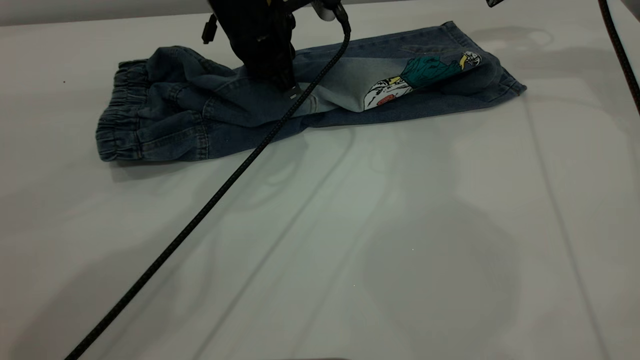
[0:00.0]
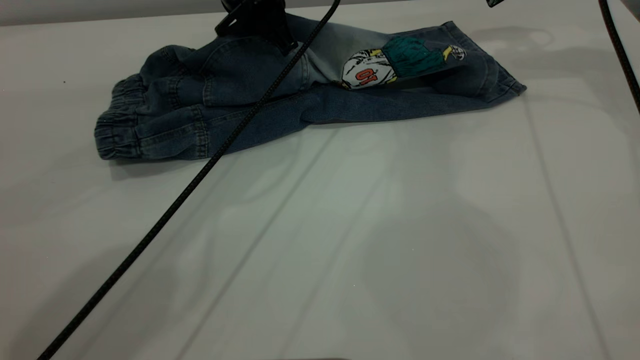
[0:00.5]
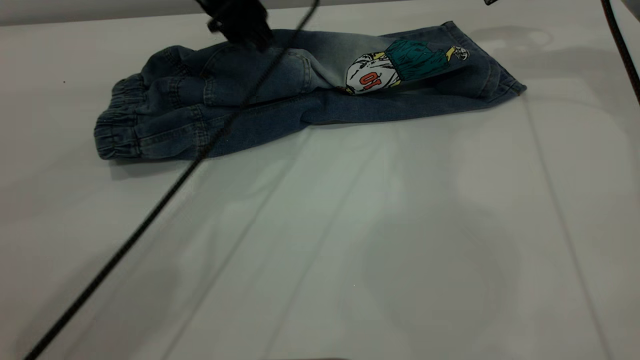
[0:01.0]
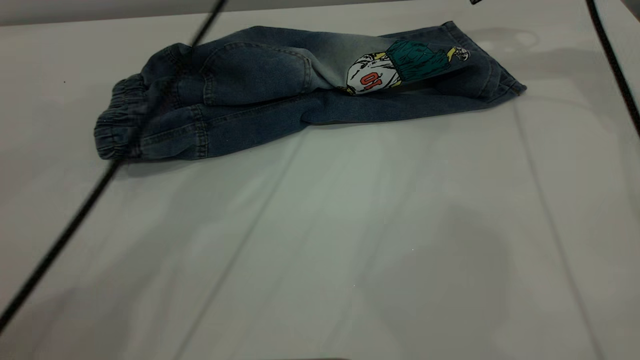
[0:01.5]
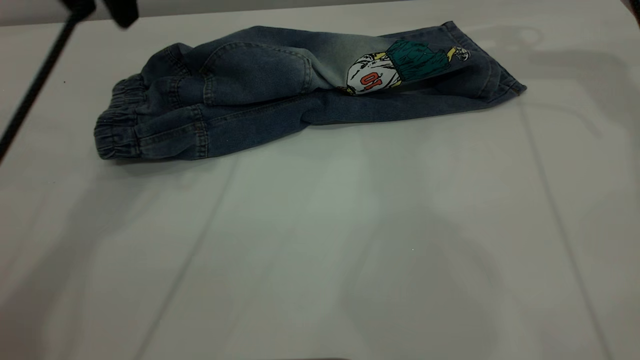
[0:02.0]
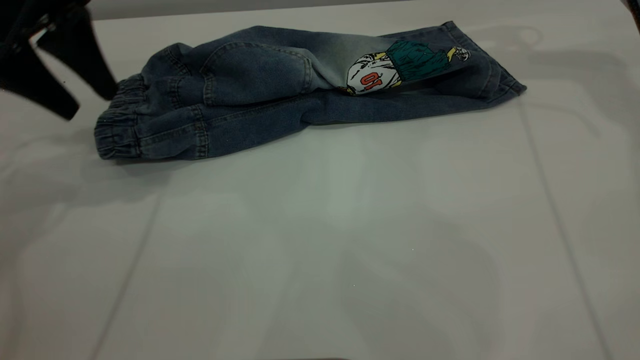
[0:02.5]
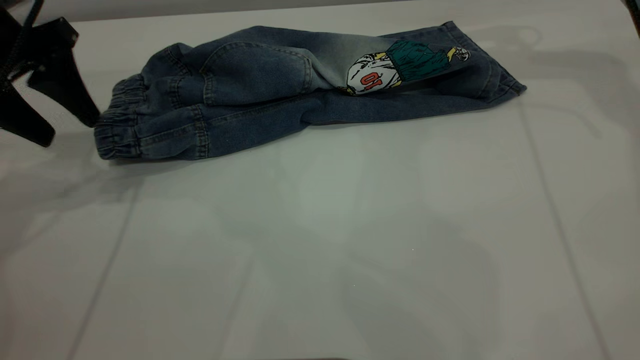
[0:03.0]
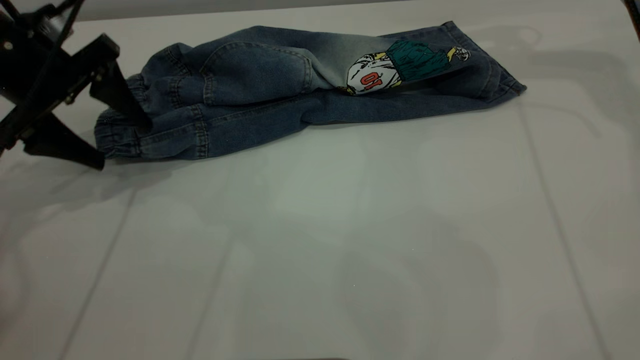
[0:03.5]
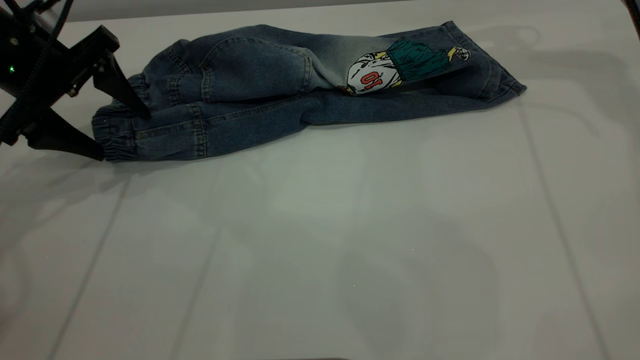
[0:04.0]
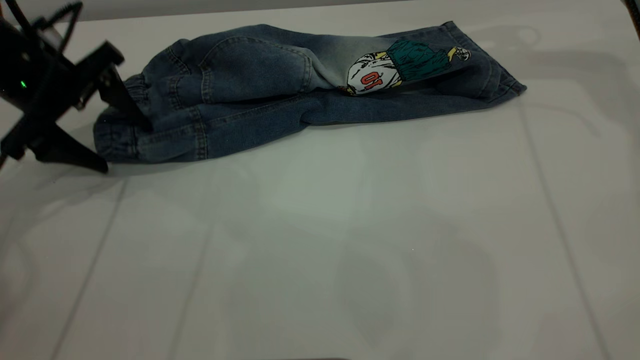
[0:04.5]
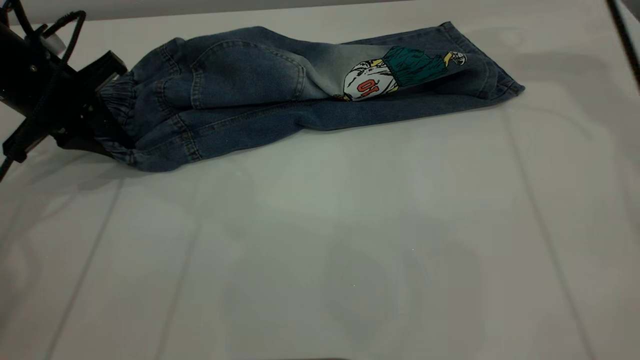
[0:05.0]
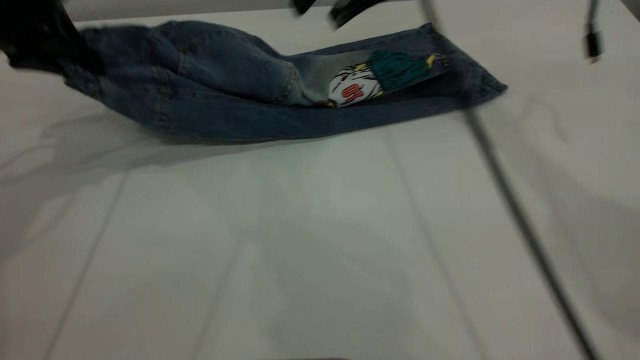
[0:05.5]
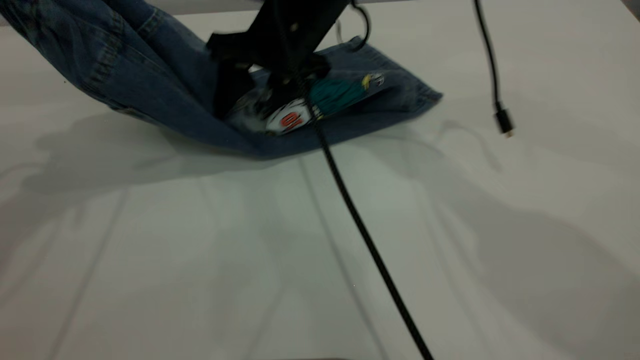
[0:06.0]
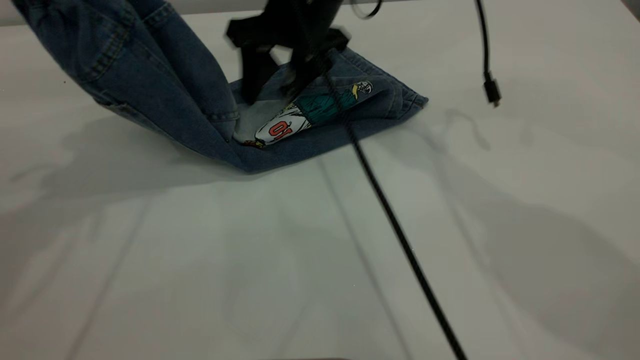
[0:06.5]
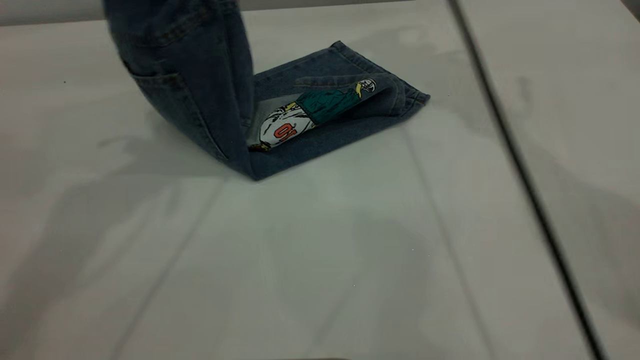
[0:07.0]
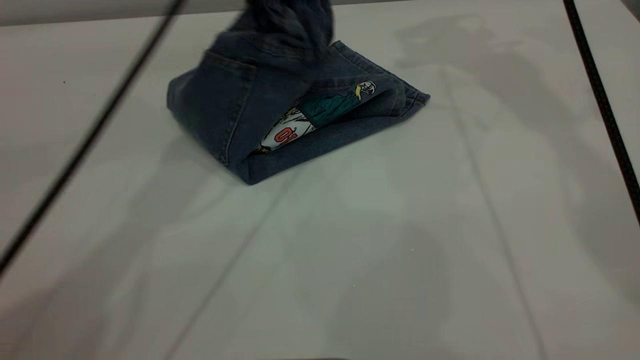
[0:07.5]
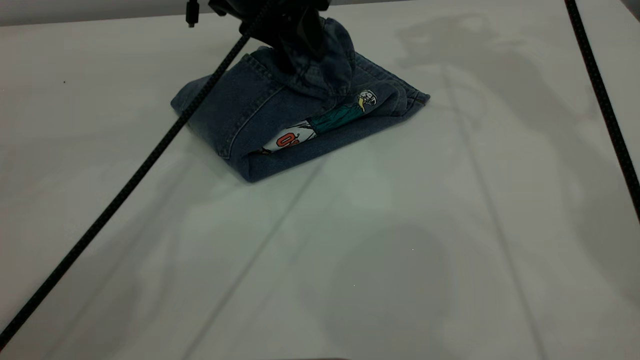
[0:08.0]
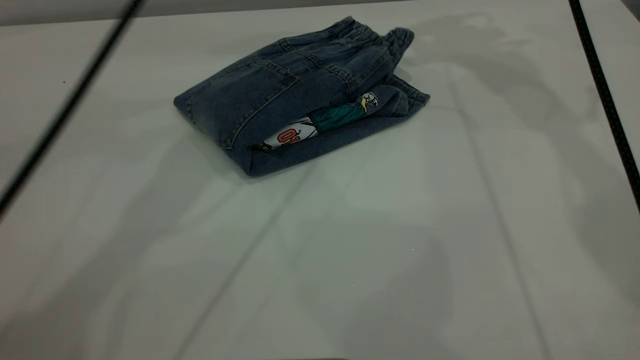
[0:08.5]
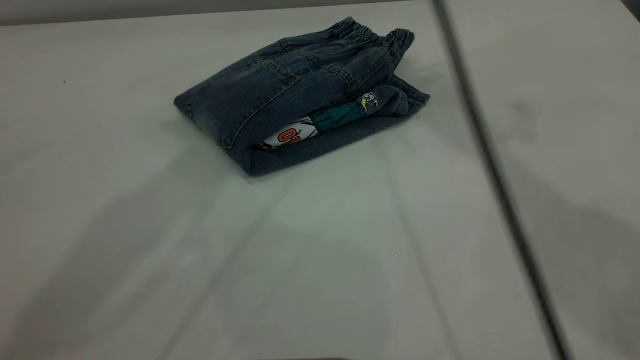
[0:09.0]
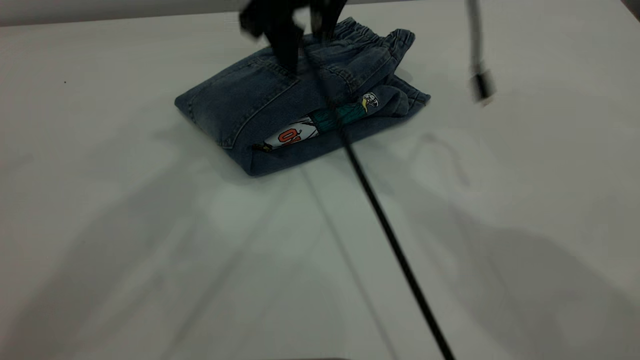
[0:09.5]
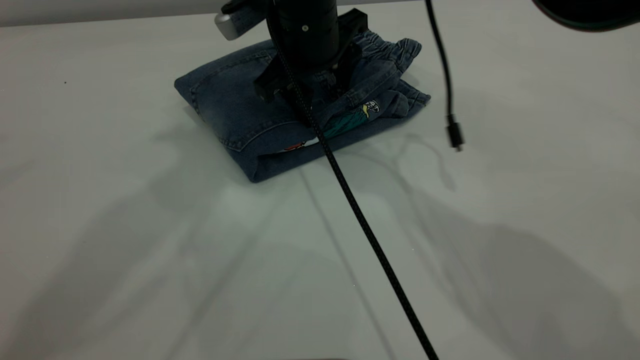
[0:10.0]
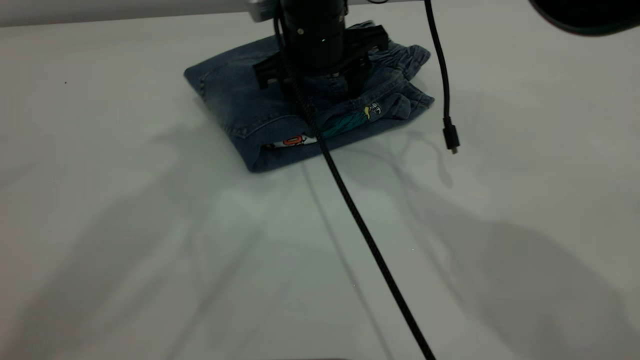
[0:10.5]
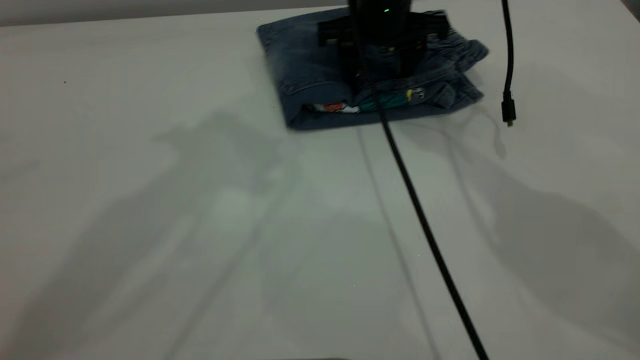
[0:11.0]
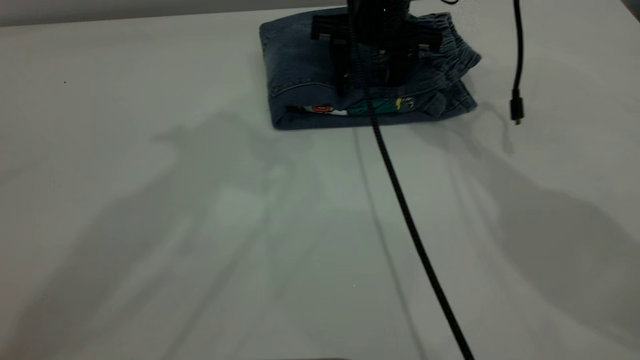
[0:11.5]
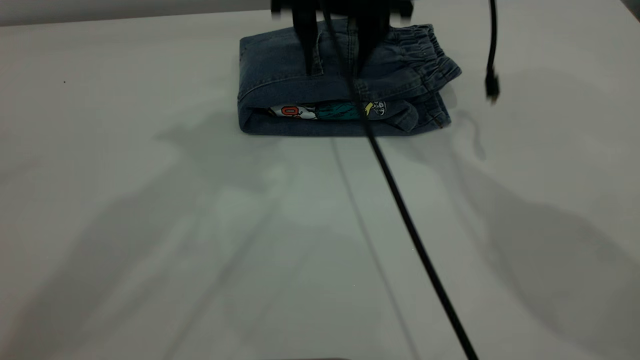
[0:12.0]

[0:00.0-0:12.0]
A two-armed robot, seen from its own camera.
Step, 0:02.0 to 0:08.5: Fold the pants from left to right.
0:00.0 to 0:02.0: The right gripper moves upward, some 5 cm. The left gripper is displaced to the left and upward by roughly 20 cm, and opens up.
0:02.0 to 0:04.0: The left gripper is displaced downward and to the left by about 15 cm.
0:04.0 to 0:06.0: The left gripper shifts roughly 15 cm upward, and closes its fingers; the right gripper travels to the left and downward by roughly 30 cm.
0:06.0 to 0:08.0: The left gripper heads to the right, downward and forward, covering roughly 25 cm, and opens up. The right gripper travels upward, to the right and forward by about 30 cm.
0:08.0 to 0:10.0: The left gripper travels upward by some 25 cm, and opens. The right gripper heads downward, to the left and backward, covering about 30 cm.
0:10.0 to 0:12.0: The right gripper goes some 5 cm upward.

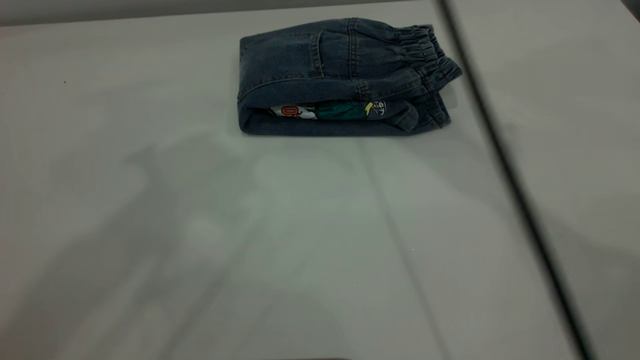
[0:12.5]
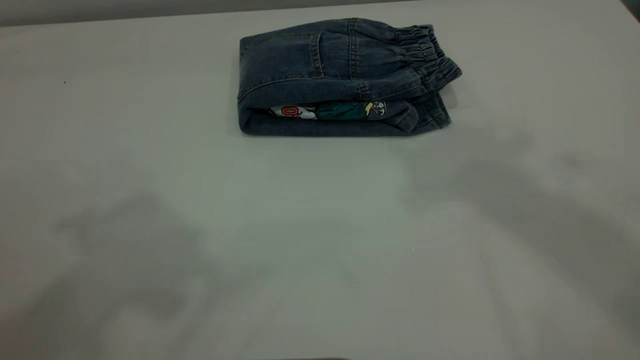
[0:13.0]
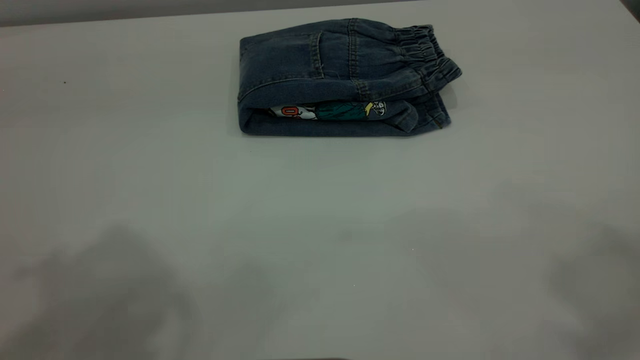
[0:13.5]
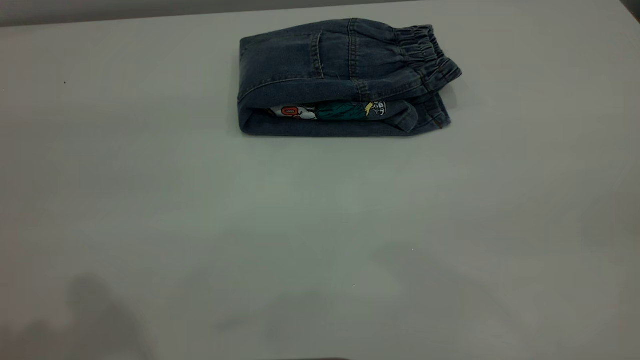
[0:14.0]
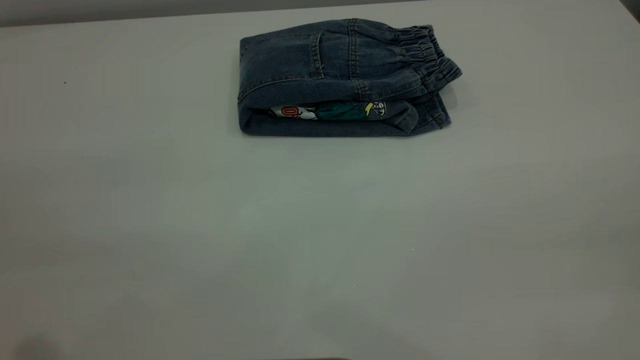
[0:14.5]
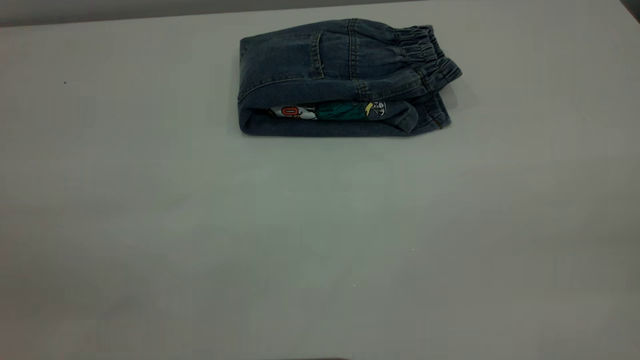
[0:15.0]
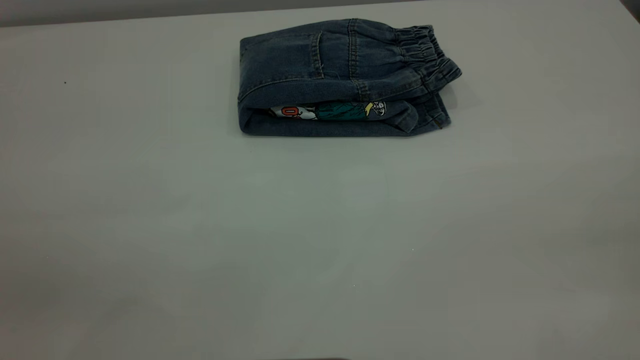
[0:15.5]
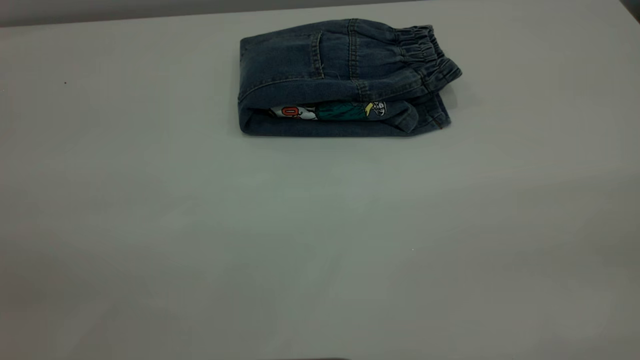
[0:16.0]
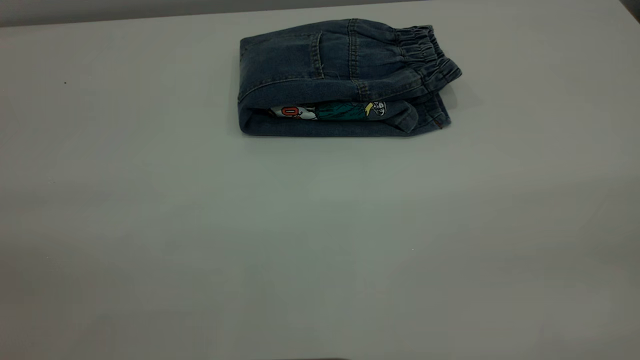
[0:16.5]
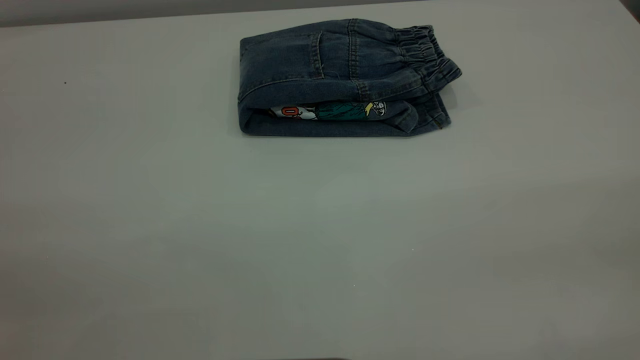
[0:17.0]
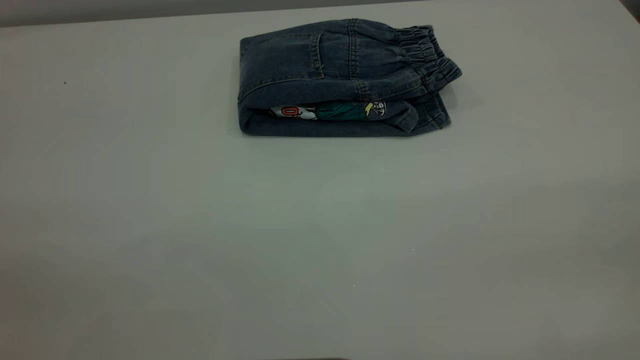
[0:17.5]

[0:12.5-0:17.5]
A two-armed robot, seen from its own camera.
0:12.5 to 0:15.0: The right gripper is displaced backward and to the right by some 50 cm.
